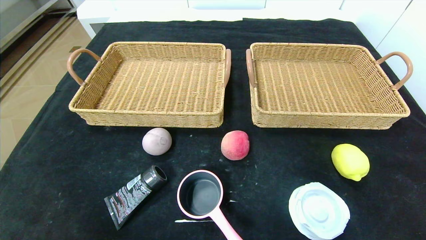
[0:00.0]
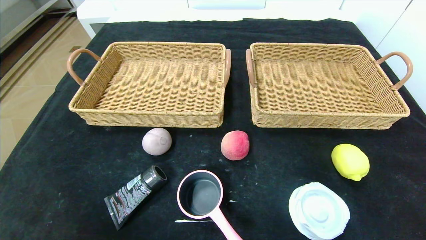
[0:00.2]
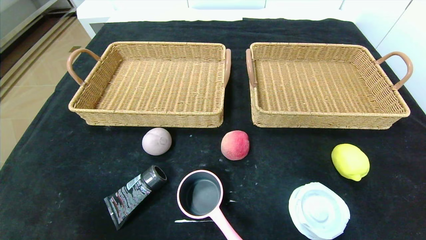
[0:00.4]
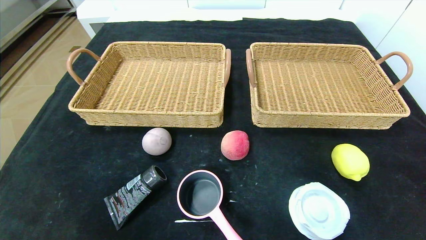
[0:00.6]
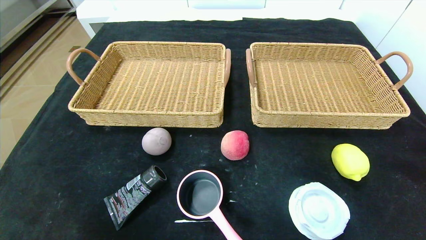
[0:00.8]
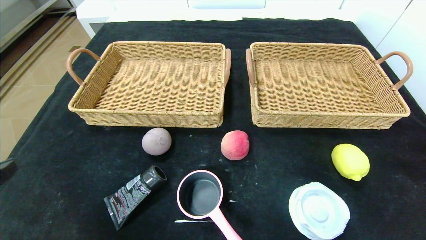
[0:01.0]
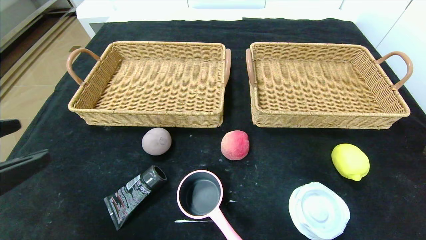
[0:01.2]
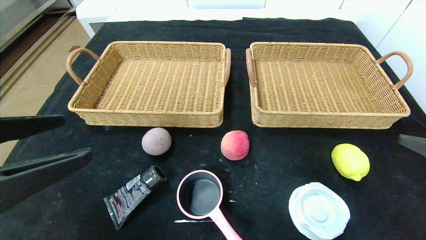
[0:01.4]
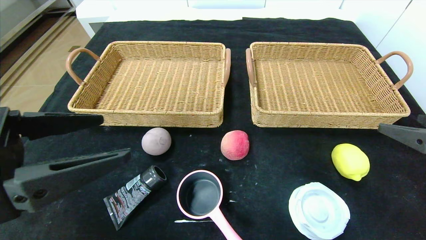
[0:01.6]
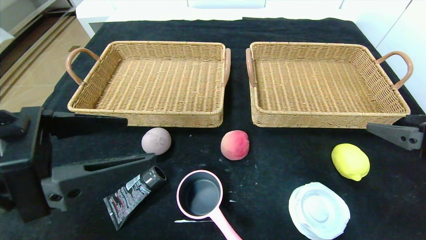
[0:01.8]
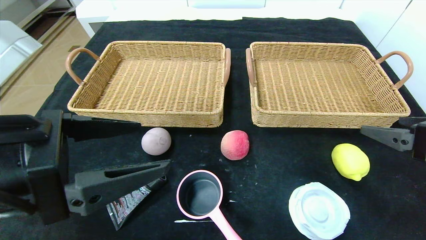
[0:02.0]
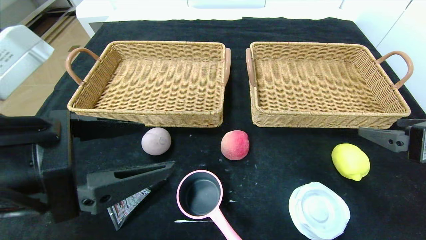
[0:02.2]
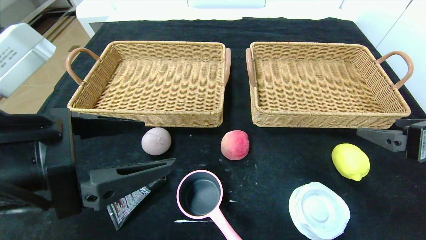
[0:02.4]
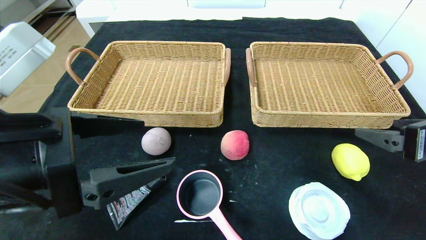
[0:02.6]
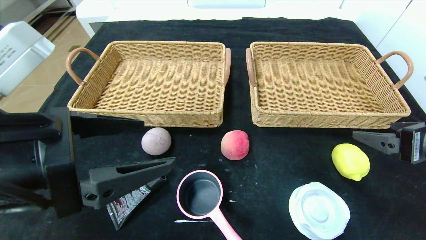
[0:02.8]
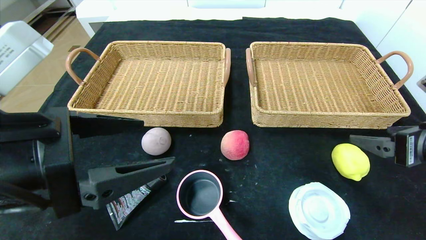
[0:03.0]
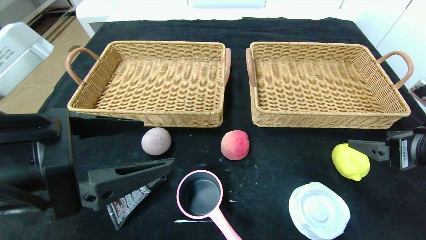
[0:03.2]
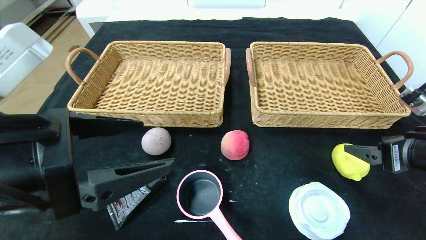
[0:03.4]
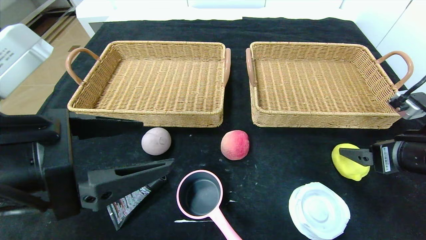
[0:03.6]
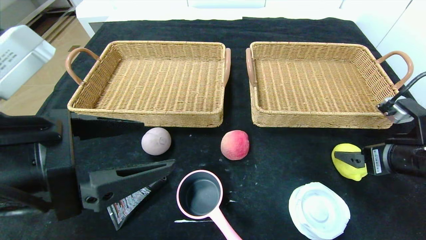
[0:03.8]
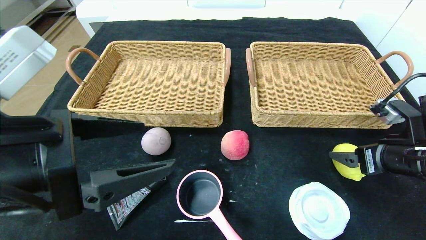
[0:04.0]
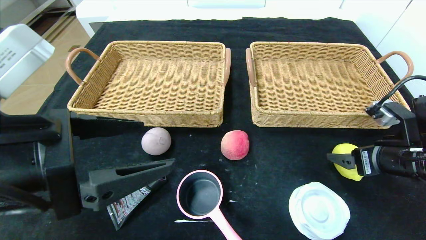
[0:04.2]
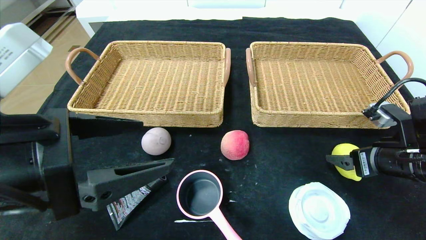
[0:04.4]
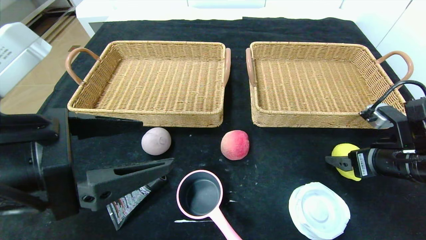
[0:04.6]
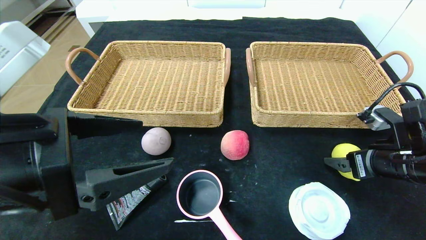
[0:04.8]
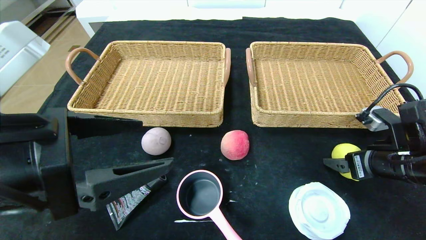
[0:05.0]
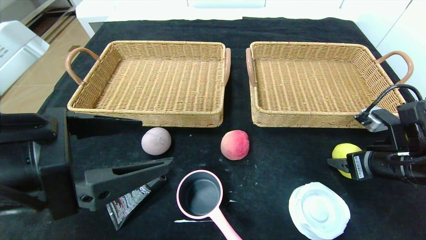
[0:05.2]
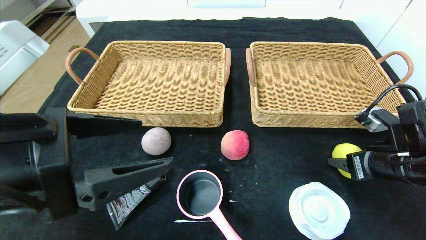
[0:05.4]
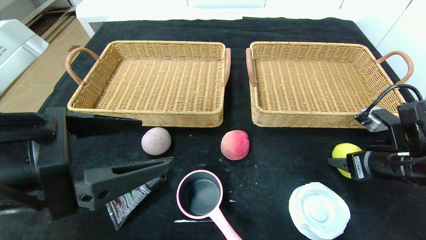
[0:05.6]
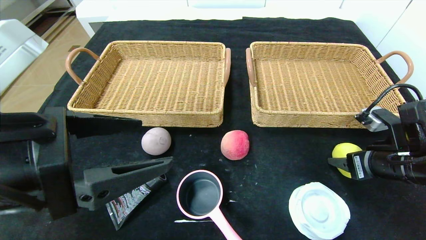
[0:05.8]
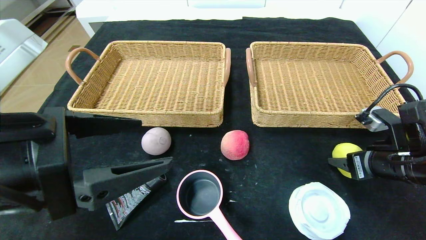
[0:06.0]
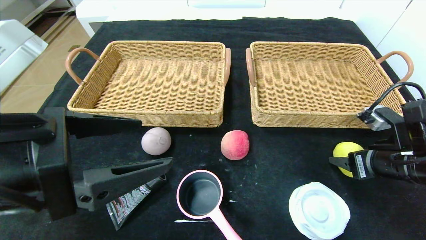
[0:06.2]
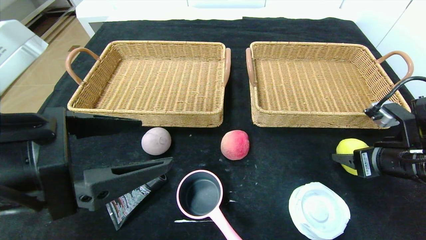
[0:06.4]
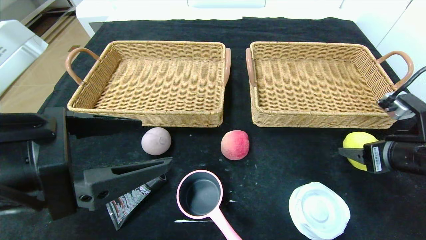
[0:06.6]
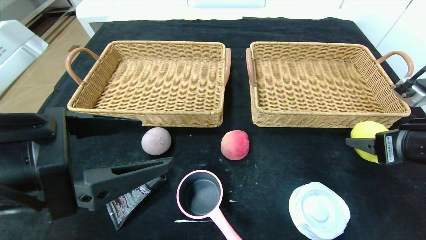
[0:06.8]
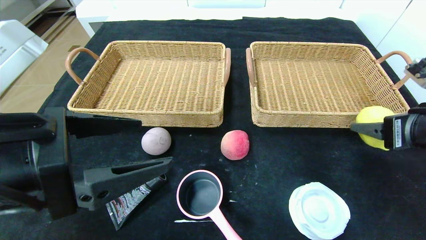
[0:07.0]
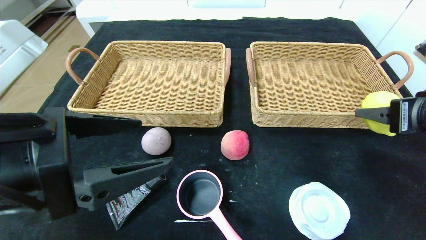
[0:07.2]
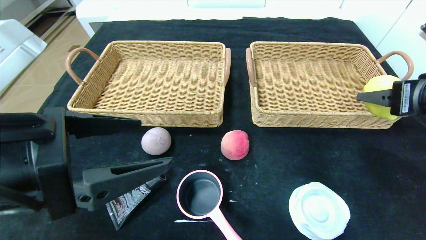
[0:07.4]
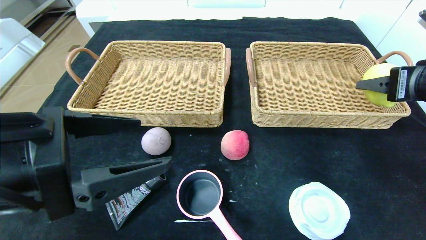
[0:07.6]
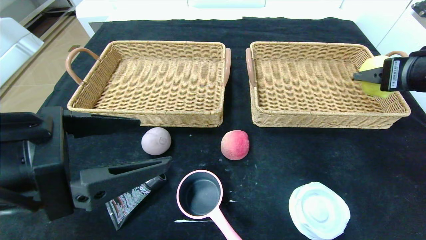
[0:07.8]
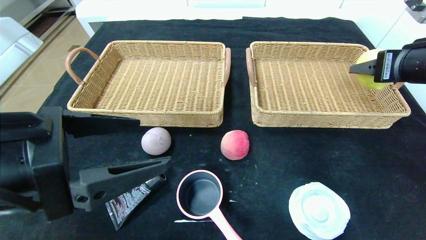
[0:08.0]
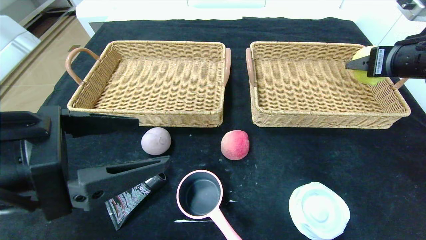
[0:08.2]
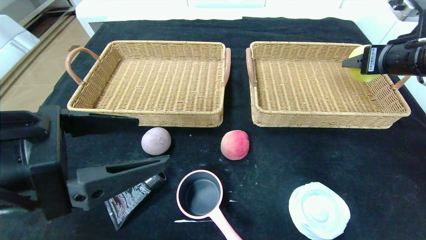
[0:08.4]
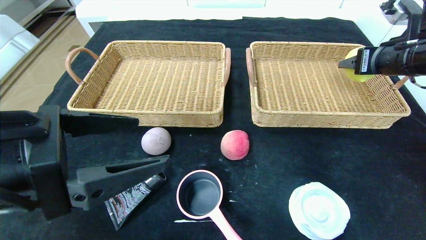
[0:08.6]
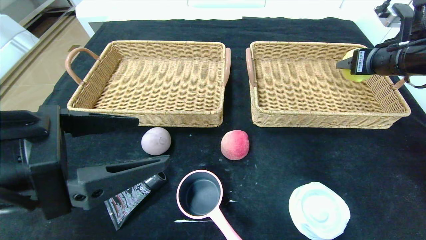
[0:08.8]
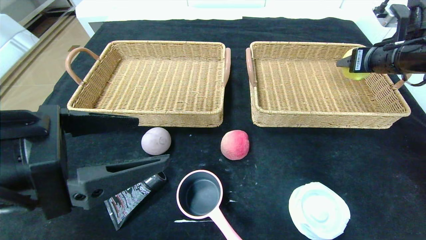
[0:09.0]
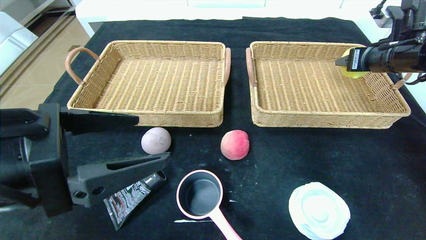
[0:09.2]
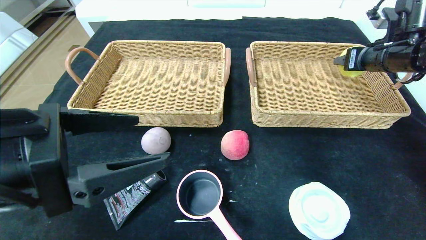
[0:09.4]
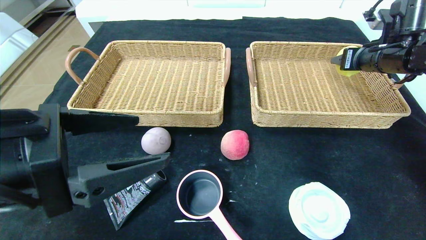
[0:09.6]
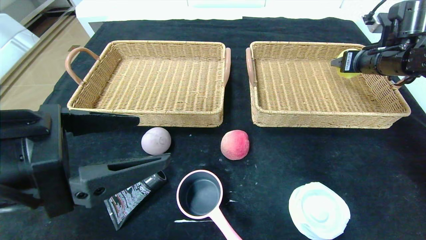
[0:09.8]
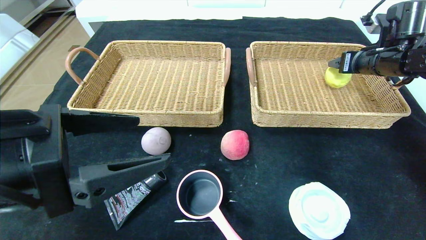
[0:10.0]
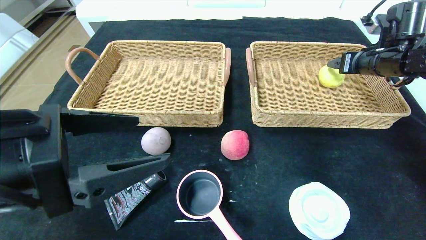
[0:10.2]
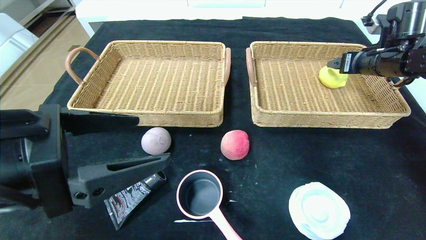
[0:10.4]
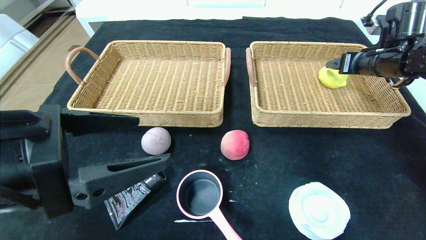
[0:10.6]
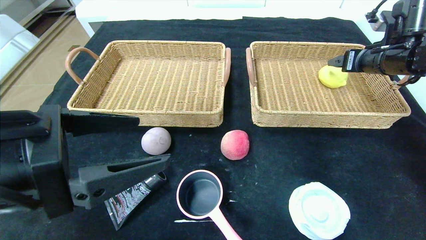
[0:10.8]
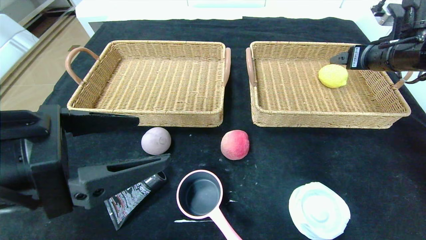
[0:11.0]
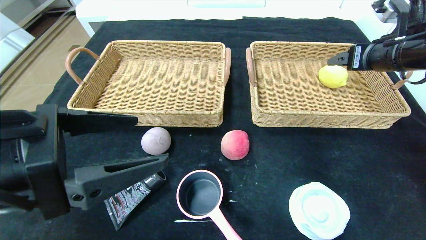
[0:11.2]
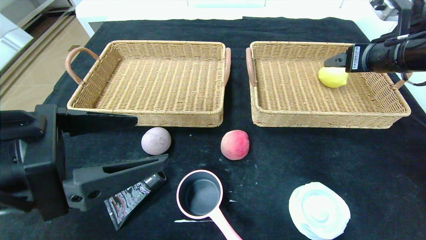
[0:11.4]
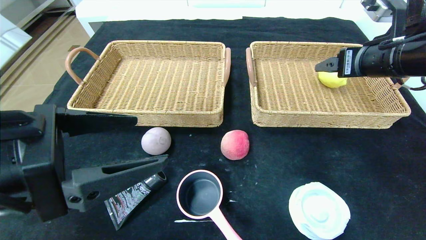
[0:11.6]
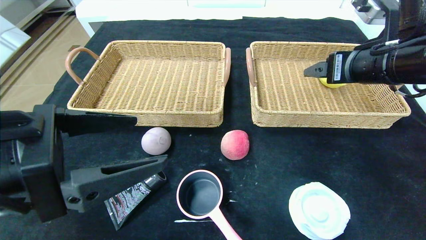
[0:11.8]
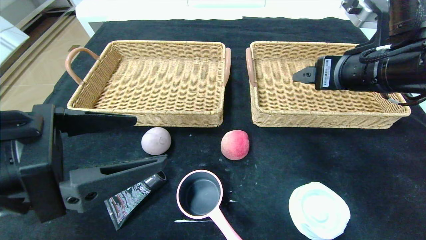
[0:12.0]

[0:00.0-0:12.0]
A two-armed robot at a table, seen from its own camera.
0:00.0 to 0:01.6: The left gripper moves upward and forward, about 25 cm; the right gripper heads forward and upward, covering about 25 cm.
0:01.6 to 0:03.0: The grippers move only a little.
0:03.0 to 0:04.4: The right gripper travels downward by about 5 cm.
0:04.4 to 0:06.0: The two grippers keep their place.
0:06.0 to 0:07.6: The right gripper moves upward, roughly 15 cm.
0:07.6 to 0:09.0: The right gripper is displaced forward by roughly 10 cm.
0:09.0 to 0:10.4: The grippers move only a little.
0:10.4 to 0:12.0: The right gripper travels backward and to the left by roughly 20 cm.

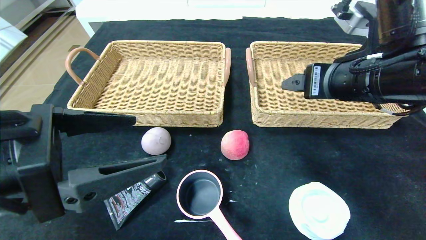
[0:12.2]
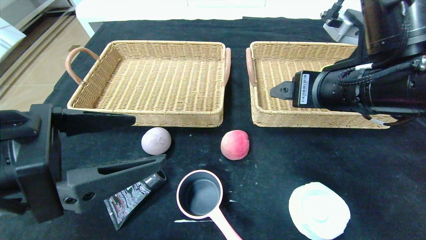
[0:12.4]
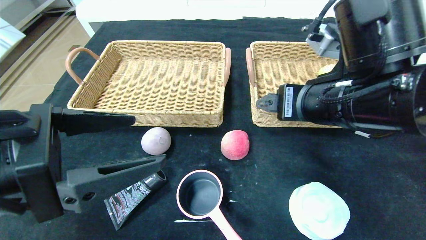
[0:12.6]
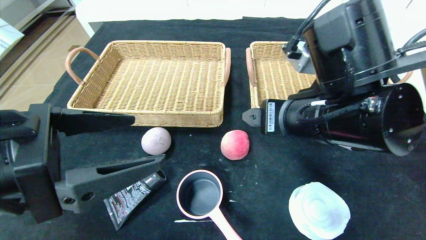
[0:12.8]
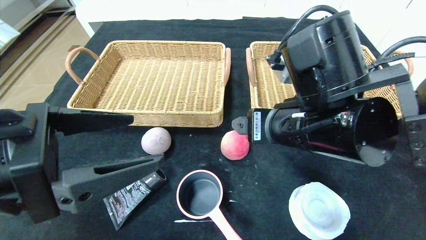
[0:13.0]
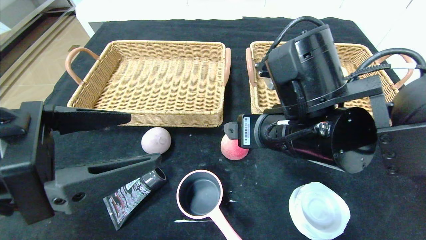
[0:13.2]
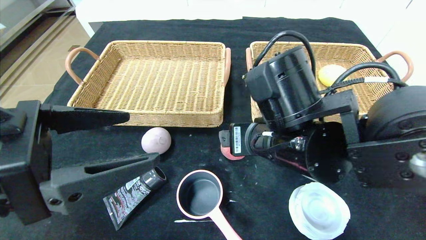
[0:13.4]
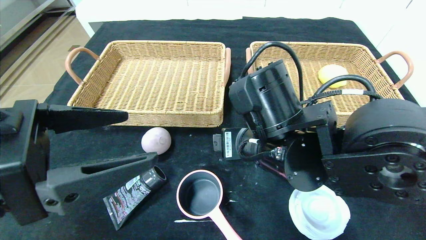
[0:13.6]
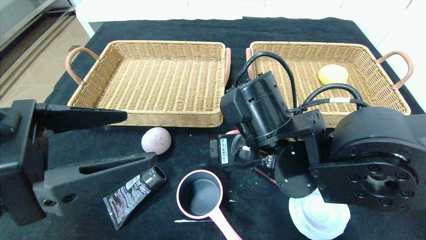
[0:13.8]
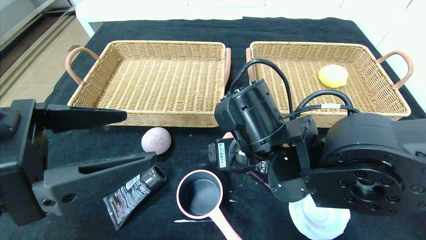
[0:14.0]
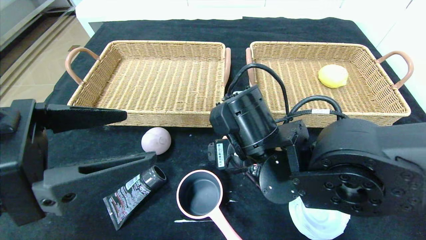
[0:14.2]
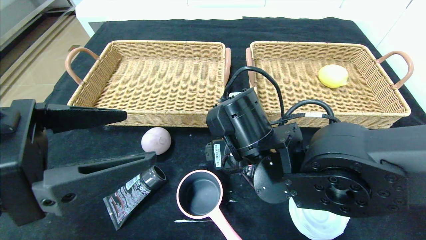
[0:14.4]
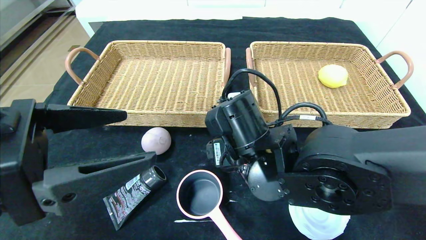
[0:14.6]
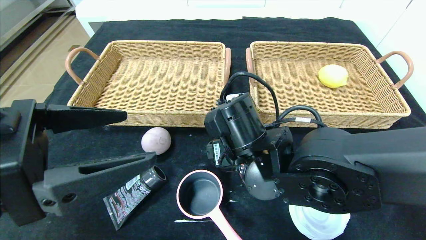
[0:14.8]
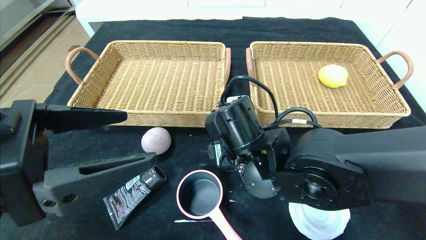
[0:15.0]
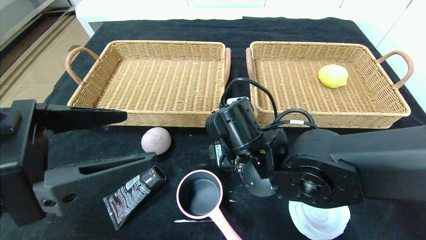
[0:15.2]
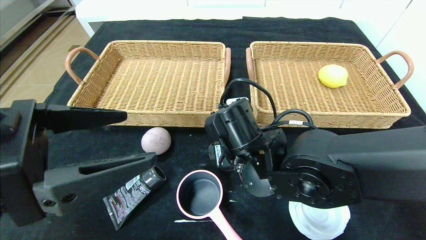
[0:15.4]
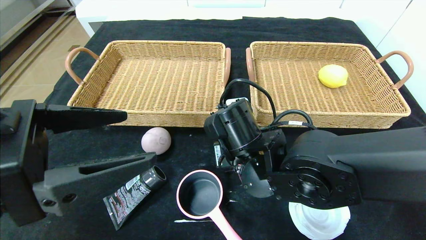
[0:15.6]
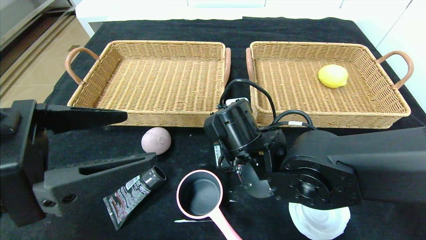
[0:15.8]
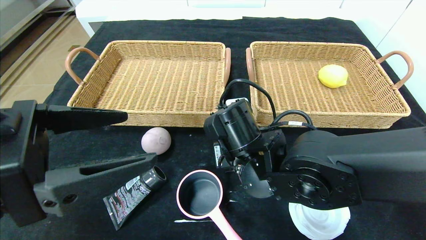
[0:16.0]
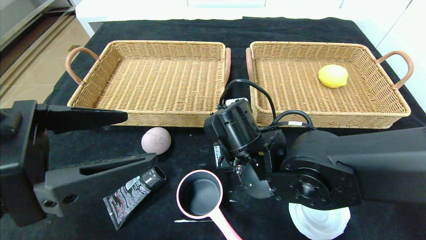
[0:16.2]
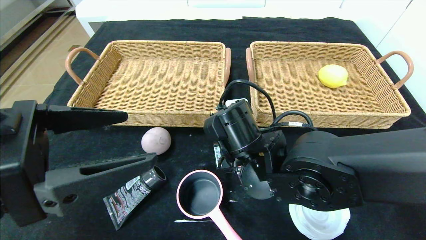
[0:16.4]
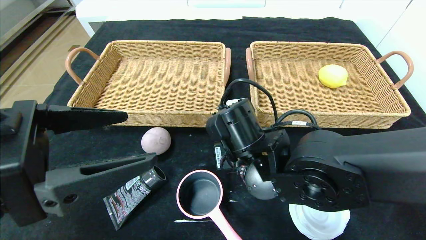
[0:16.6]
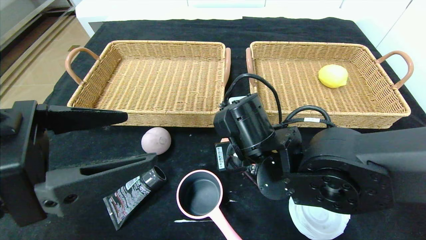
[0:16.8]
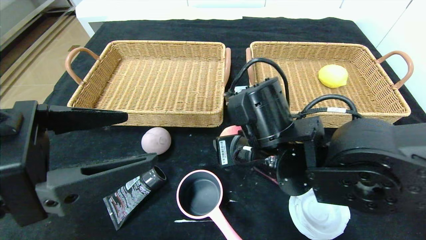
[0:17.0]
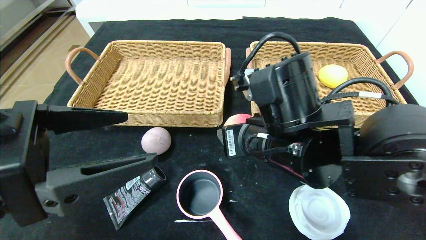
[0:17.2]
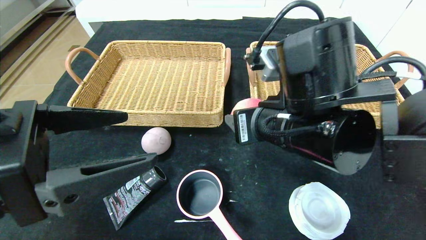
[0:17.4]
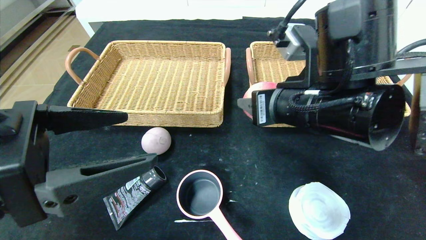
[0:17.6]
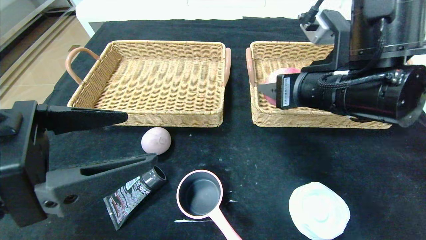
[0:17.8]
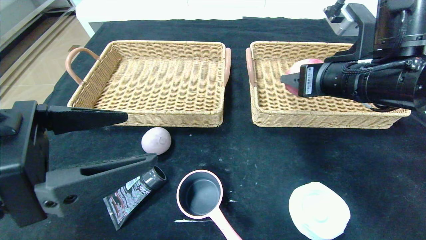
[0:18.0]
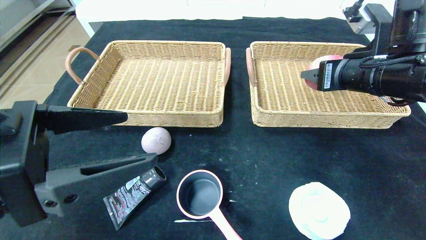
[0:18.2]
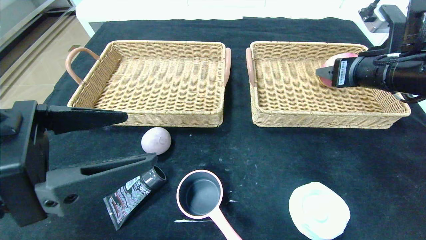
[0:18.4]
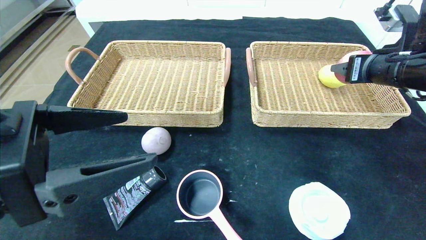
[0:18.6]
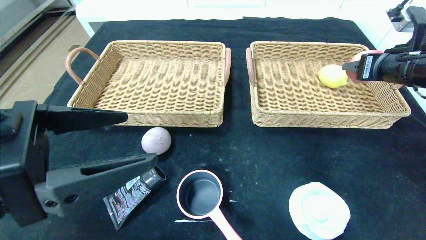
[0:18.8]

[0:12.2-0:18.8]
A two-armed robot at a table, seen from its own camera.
0:12.2 to 0:13.8: The right gripper travels to the left and downward by about 15 cm.
0:13.8 to 0:15.4: The right gripper shifts by some 5 cm.
0:15.4 to 0:17.2: The right gripper shifts about 5 cm upward, and closes up.
0:17.2 to 0:18.8: The right gripper moves to the right, some 25 cm.
